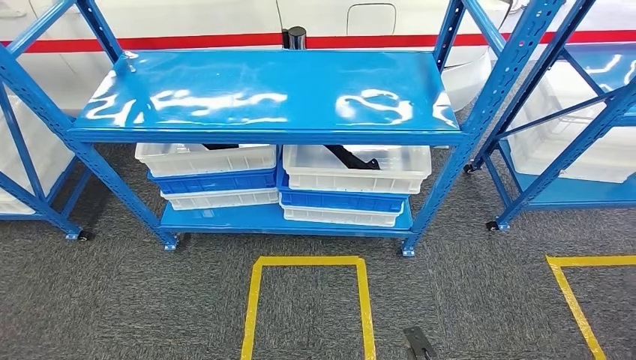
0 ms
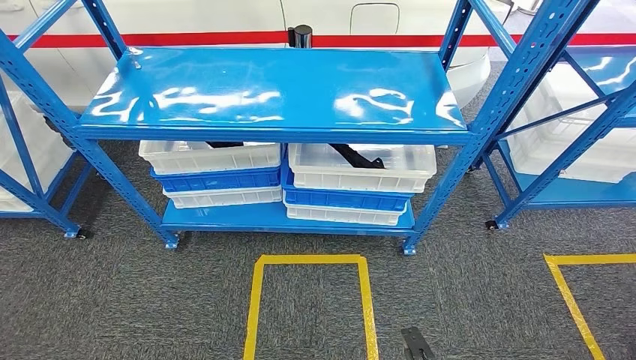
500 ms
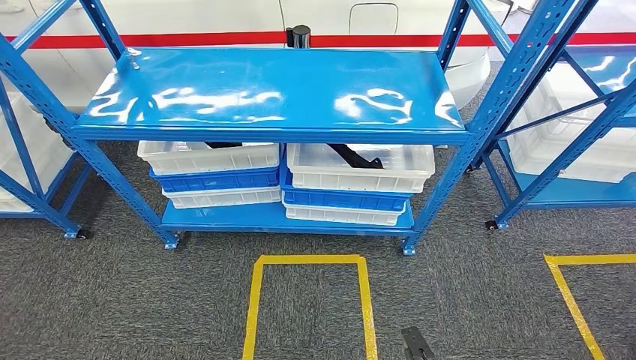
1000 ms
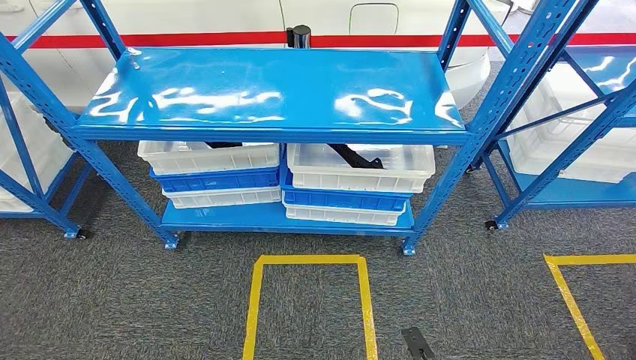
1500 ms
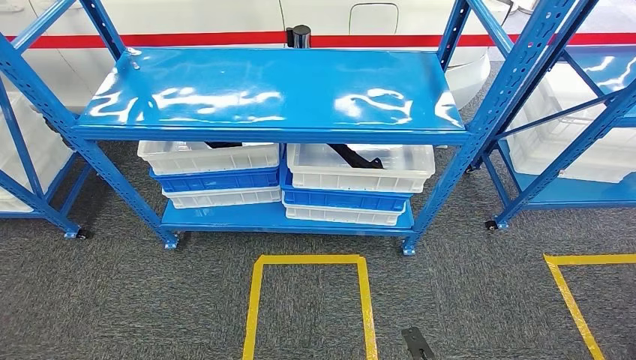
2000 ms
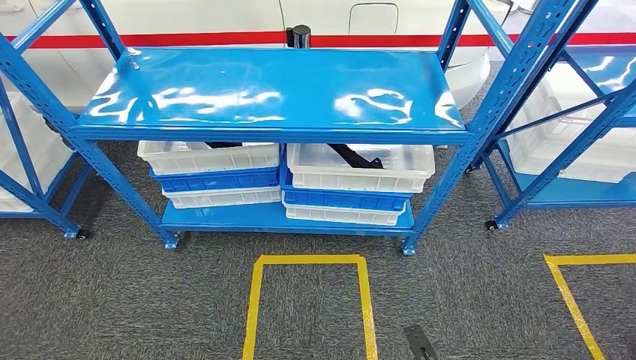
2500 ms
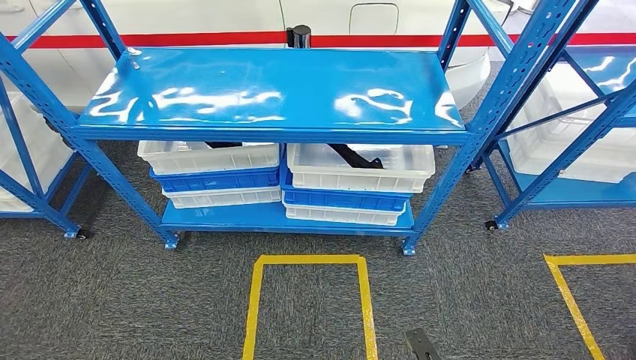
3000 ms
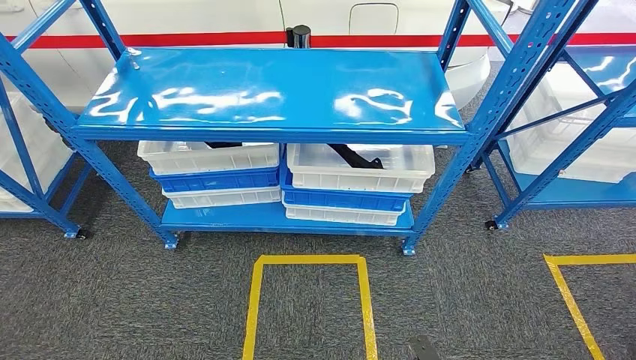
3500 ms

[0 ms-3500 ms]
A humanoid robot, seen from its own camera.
Step, 0 ms to 3500 ms: Return to the initial position at the shelf.
0 ms to 2000 ms: Both hands stay put.
